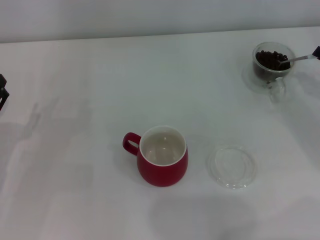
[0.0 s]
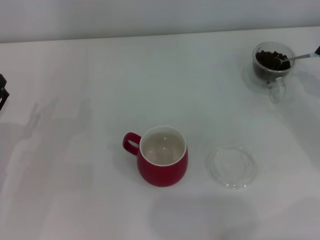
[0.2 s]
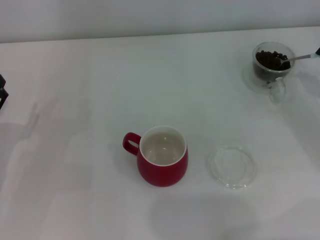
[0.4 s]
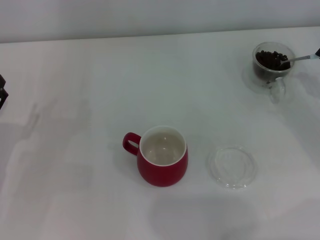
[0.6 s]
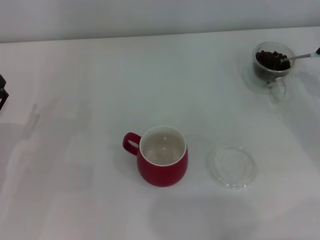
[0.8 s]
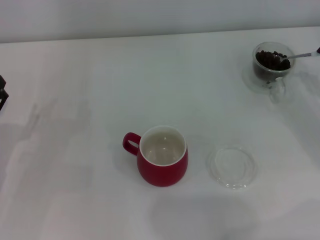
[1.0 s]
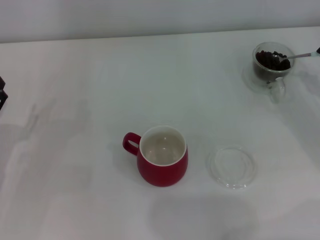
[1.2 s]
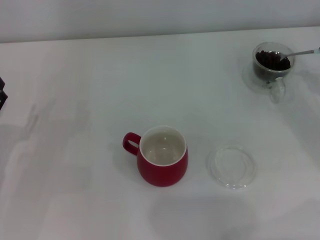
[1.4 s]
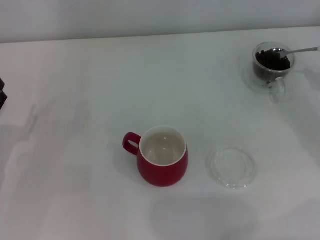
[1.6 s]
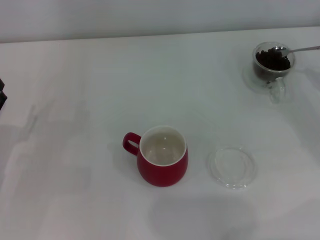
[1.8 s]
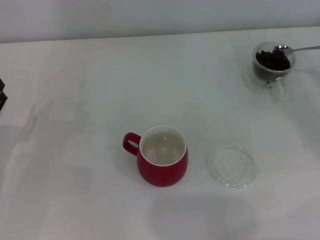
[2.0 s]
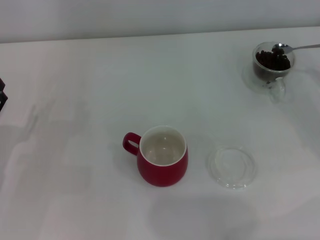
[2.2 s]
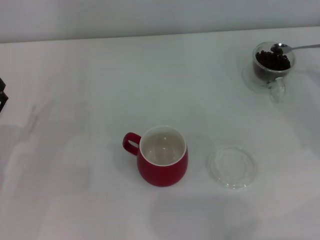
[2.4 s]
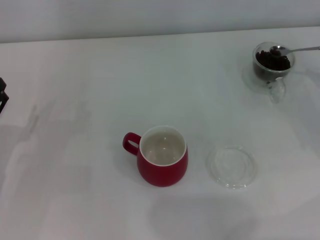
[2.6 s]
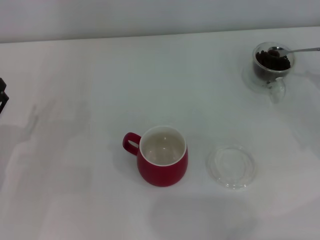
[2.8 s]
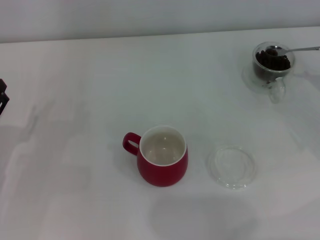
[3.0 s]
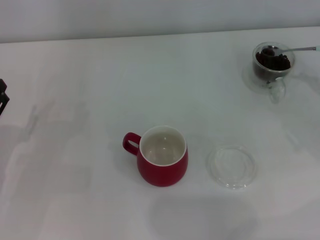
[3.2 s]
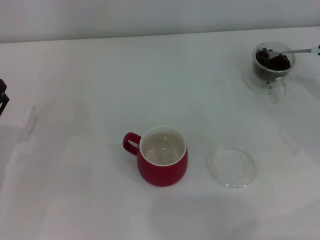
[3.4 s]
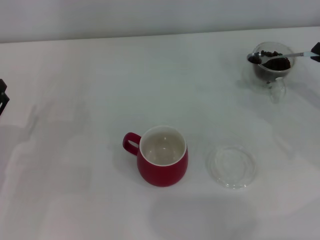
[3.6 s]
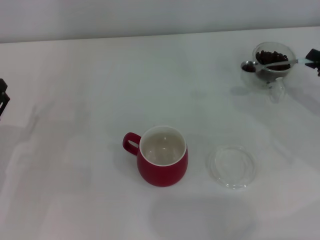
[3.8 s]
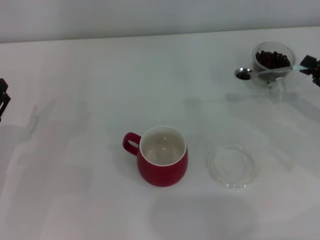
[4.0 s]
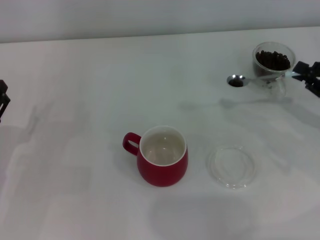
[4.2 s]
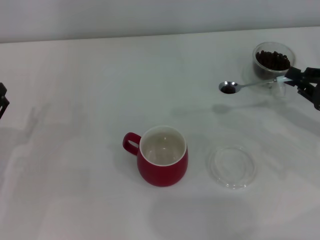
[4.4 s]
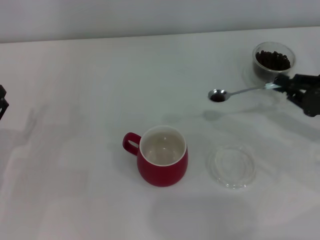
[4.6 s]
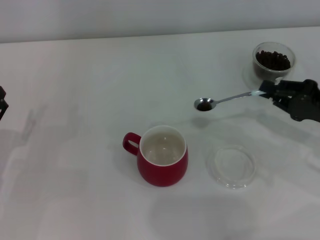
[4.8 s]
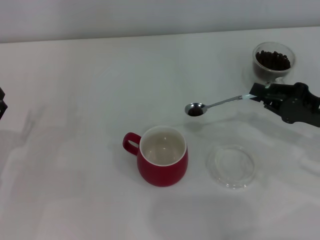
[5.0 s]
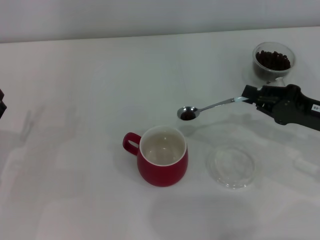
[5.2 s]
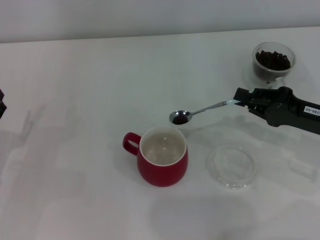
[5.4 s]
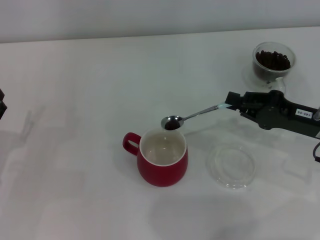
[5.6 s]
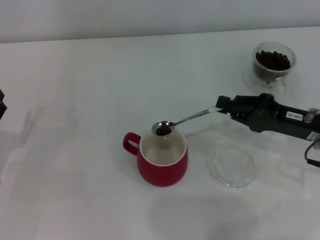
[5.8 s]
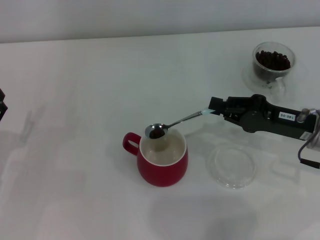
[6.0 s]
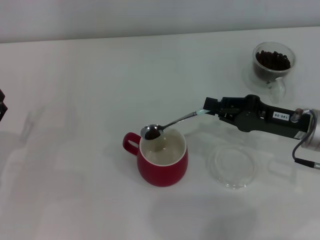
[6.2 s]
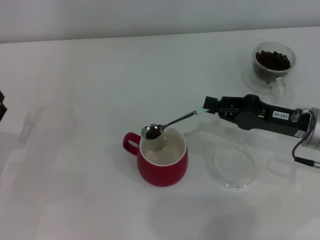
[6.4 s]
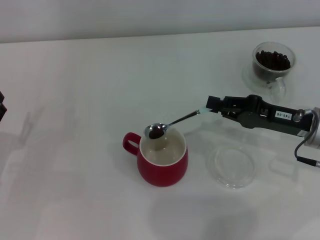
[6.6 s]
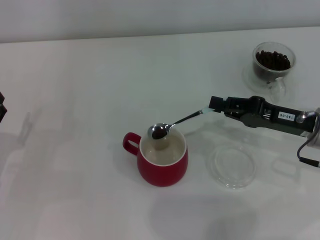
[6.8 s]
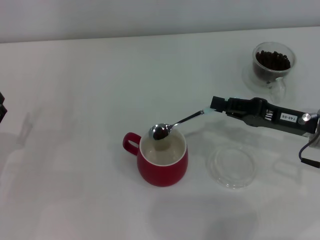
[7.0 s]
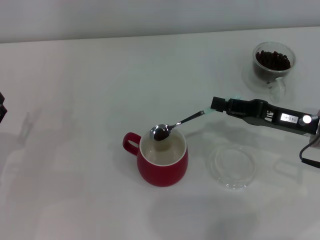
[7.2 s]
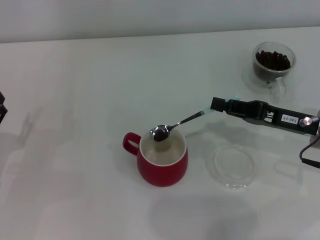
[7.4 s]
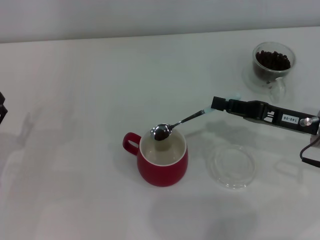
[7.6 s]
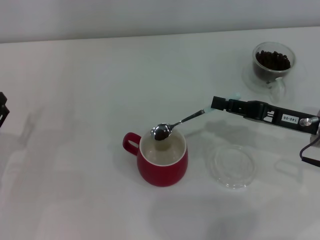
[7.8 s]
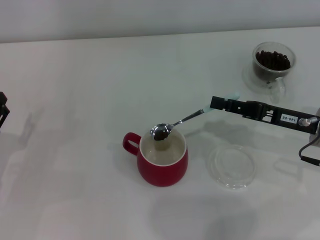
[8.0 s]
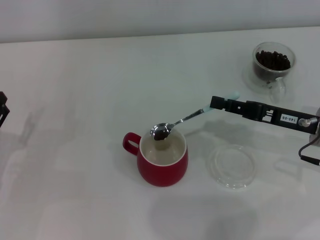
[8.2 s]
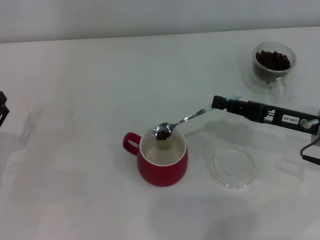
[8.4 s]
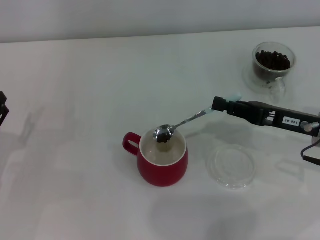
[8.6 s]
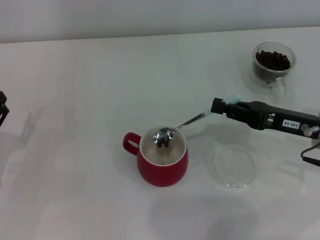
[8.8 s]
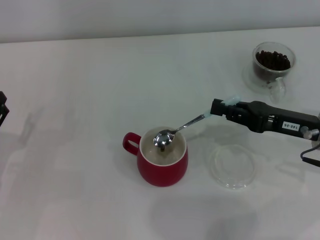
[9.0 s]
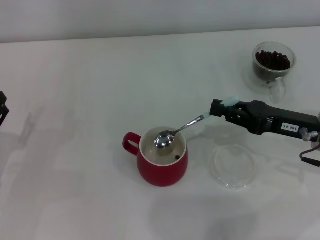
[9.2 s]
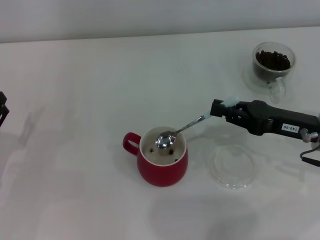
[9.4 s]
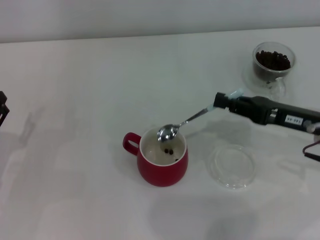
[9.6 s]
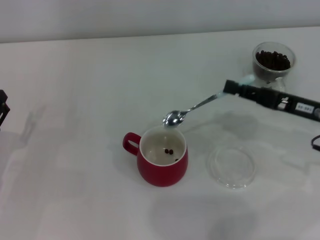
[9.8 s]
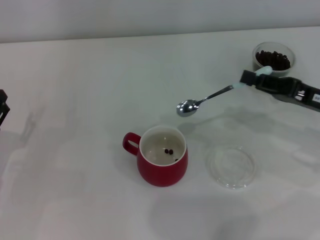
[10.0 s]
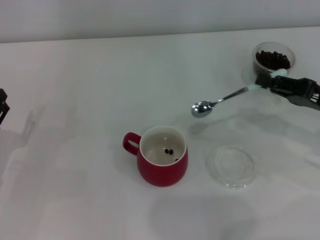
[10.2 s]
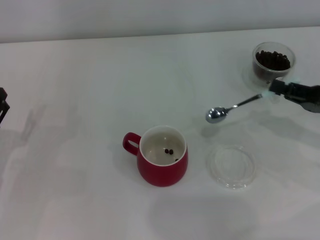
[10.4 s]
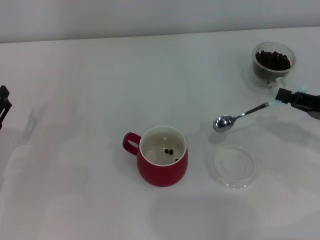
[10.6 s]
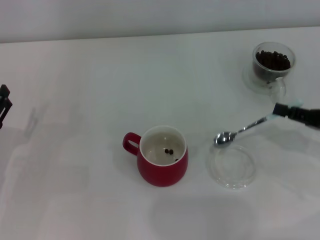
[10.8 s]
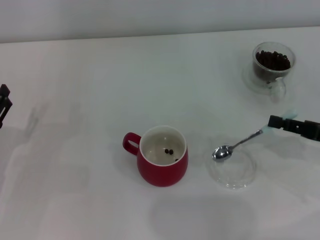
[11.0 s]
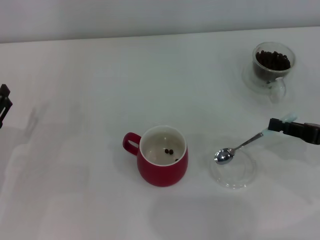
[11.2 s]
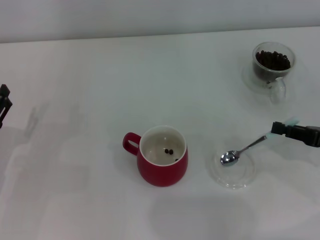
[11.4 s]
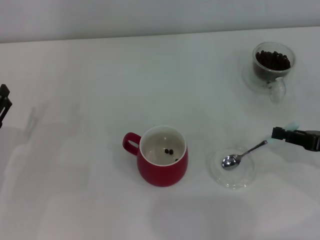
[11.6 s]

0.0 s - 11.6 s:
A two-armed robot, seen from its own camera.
Task of the whole recording: Use a blue spoon to take out the coffee beans from the glass and pour them into the red cup.
Step, 0.0 s - 9.6 s: Scoop a spoonful of beans into the cup with the right gripper.
2.8 s - 4.4 s: The right gripper travels to the left by about 5 cm.
4.4 s - 5.8 s: The right gripper is displaced to the left by roughly 10 cm.
5.8 s - 7.2 s: The grippers stay close to where they were, moving slightly.
7.2 s - 8.8 s: The grippers stay close to where they were, moving slightly.
8.8 s - 10.2 s: The right gripper shifts roughly 5 cm to the right.
10.2 s - 11.6 s: The right gripper moves about 5 cm.

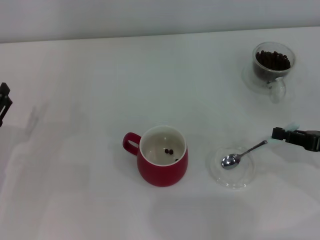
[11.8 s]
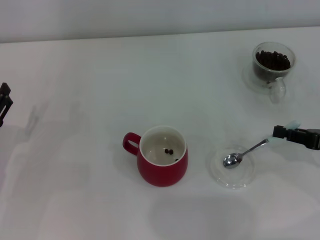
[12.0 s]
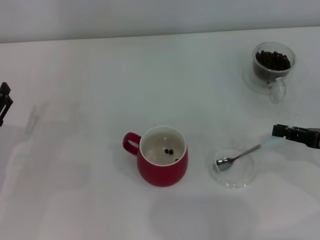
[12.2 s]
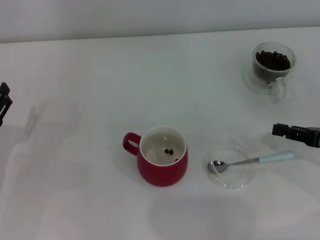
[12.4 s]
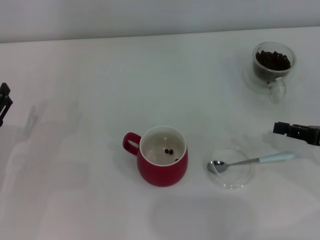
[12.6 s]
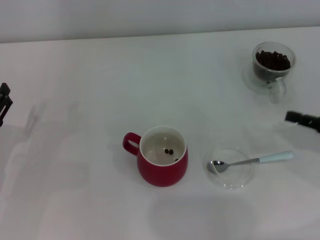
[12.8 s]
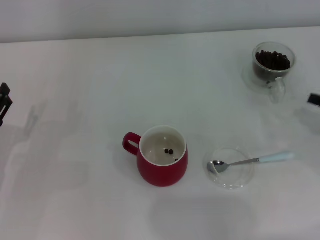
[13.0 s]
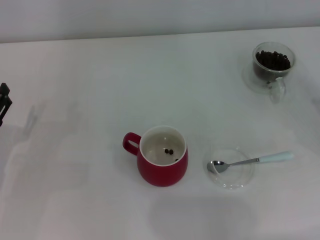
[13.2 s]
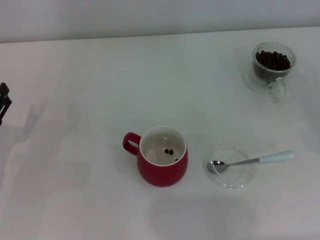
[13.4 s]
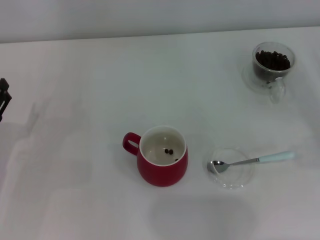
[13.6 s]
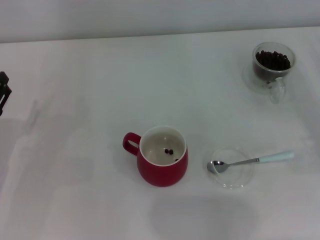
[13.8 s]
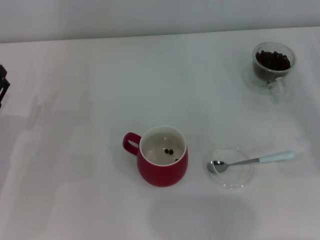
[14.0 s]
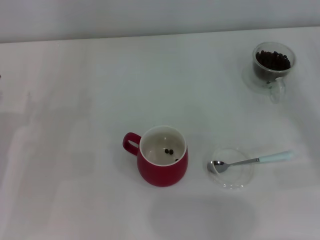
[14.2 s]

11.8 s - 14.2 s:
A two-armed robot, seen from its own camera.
Task of the whole recording: Use a blue spoon to take out the coffee beans from the glass and pour them into the red cup.
11.8 s - 13.0 s: The grippers move only a little.

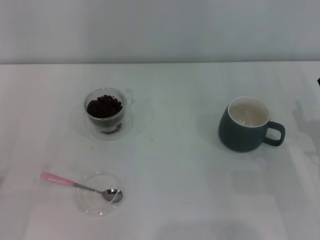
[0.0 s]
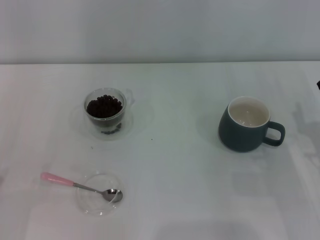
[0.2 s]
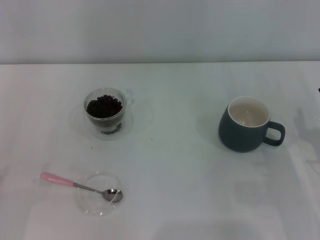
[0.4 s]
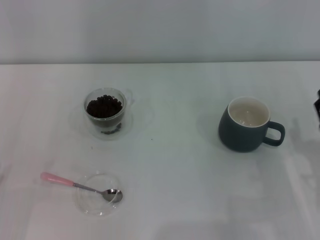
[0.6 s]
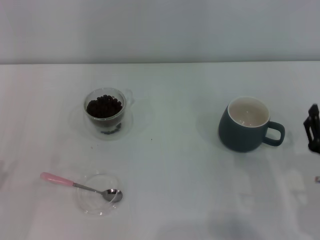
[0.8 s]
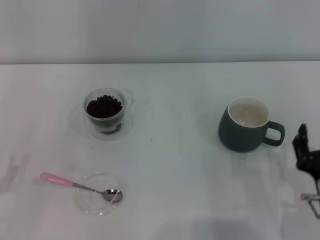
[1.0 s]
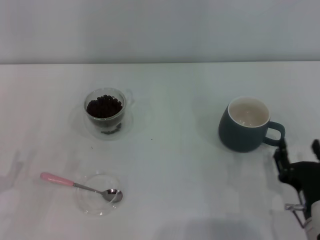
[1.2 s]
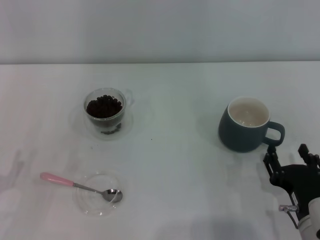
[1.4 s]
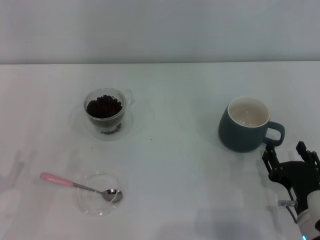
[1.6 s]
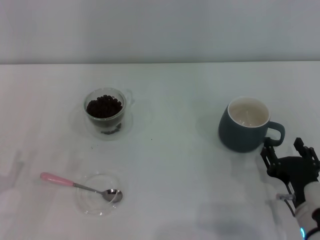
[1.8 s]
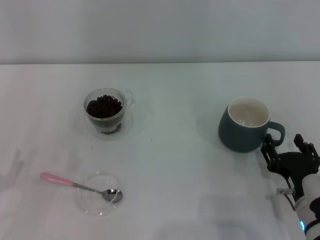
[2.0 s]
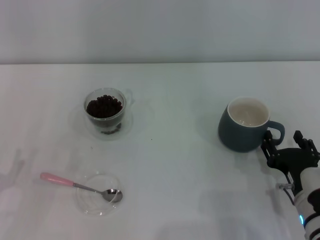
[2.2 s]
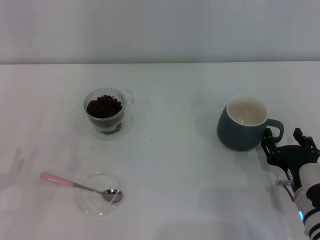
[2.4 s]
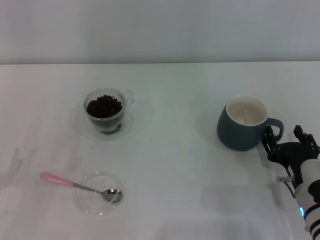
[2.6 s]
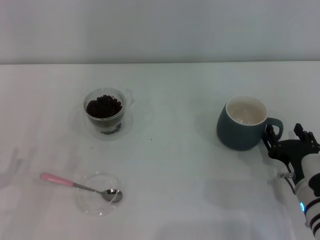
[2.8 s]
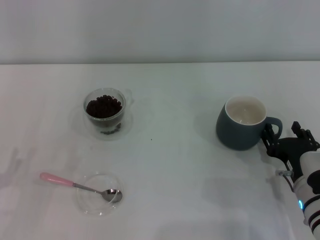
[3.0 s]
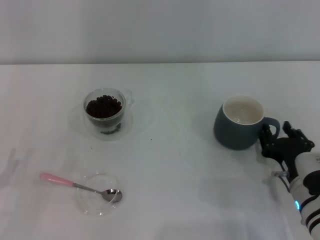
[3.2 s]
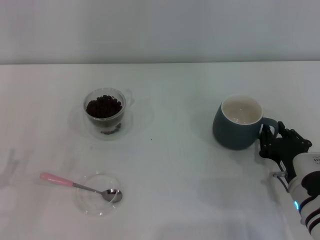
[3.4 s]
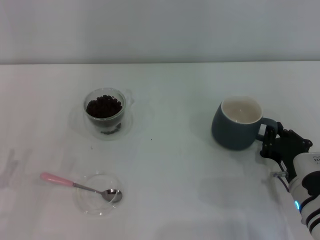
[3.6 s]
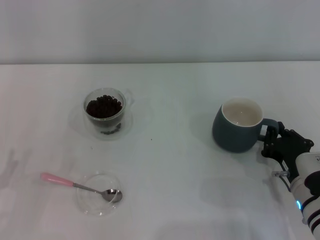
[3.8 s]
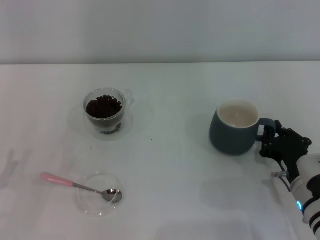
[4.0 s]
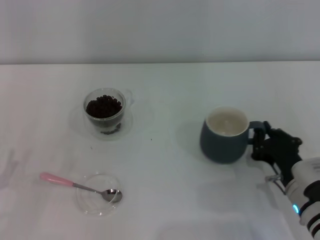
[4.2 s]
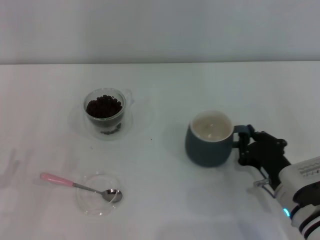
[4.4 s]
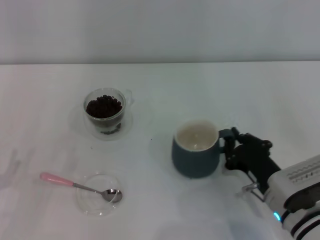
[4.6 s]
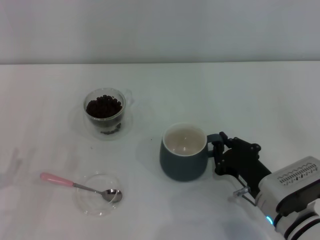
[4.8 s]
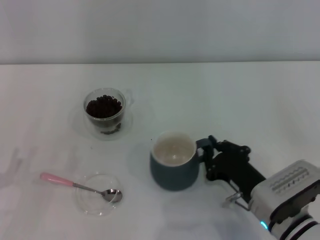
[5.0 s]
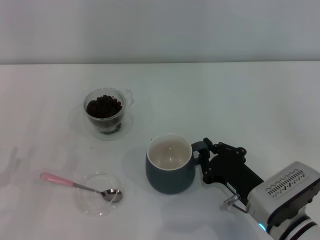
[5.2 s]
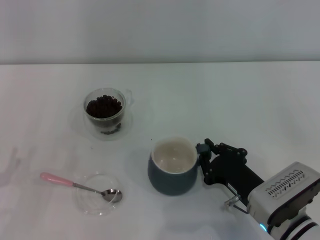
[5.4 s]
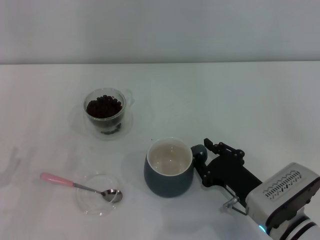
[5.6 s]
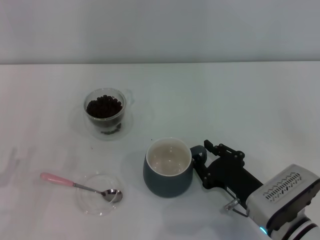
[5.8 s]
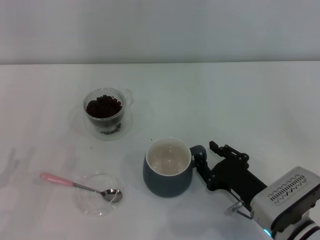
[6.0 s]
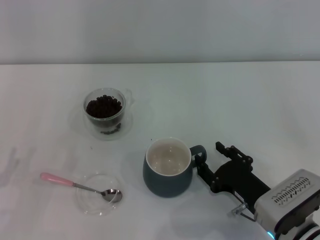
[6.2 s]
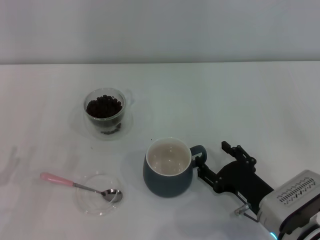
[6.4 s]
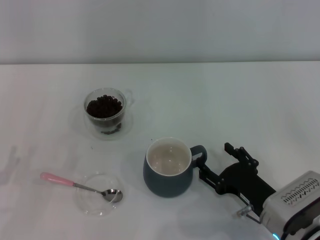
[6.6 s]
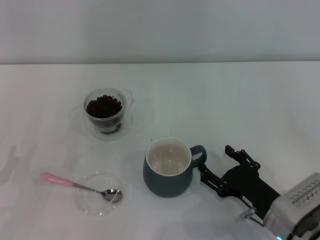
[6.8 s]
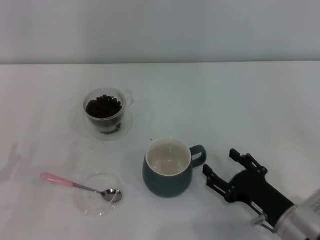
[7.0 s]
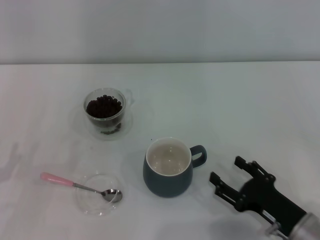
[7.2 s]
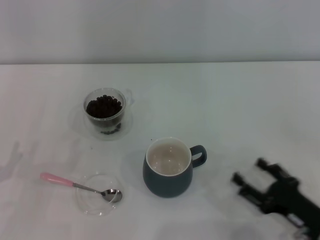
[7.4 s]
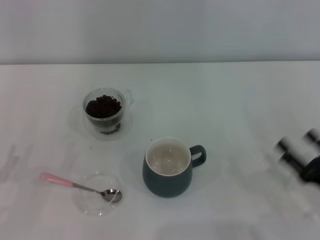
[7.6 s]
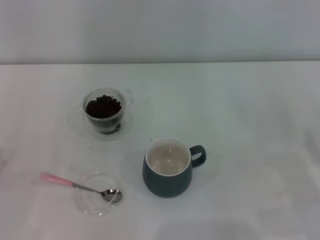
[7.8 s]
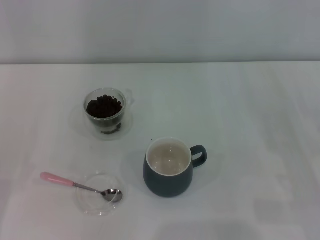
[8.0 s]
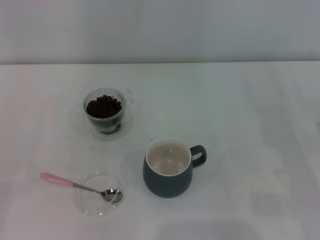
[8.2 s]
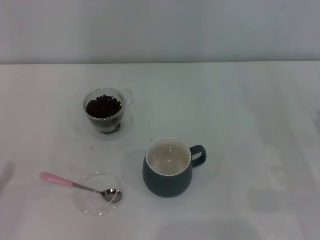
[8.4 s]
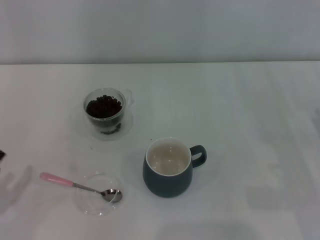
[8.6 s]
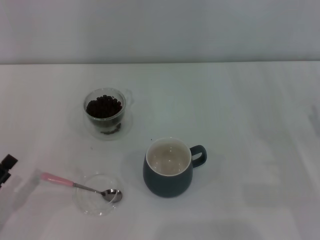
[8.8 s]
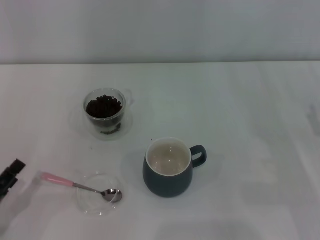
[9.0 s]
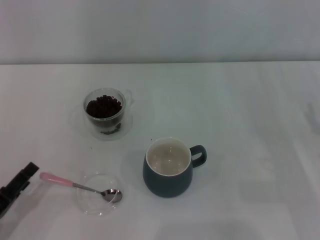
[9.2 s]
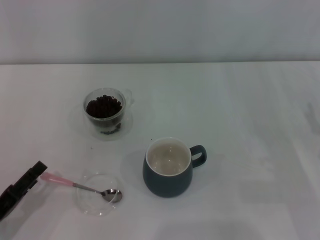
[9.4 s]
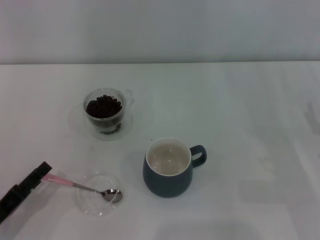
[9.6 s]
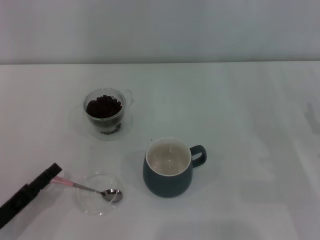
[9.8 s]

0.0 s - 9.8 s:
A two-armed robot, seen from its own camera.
Task of the whole recording: Use a pink spoon to take out the coffee beans from the glass and pour them into the gray cup.
Step, 0.0 s - 7.0 s: Move the cup to the center of view with the left gripper.
0.0 s - 1.4 s: The right gripper heads to the left and backward, covering some 15 cm.
1.4 s - 2.8 s: The right gripper goes some 5 cm forward.
2.8 s - 4.2 s: The right gripper closes its fingers.
4.2 s - 5.6 s: The right gripper heads to the left, covering roughly 5 cm.
5.6 s - 7.0 s: The right gripper opens its fingers.
7.0 s - 8.4 s: The right gripper goes some 10 cm to the right.
8.4 s - 9.8 s: The left gripper shifts approximately 5 cm to the right.
